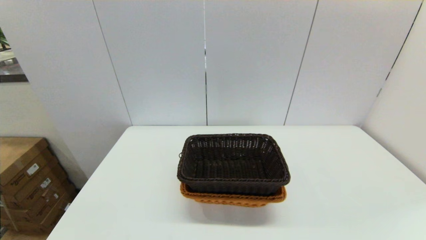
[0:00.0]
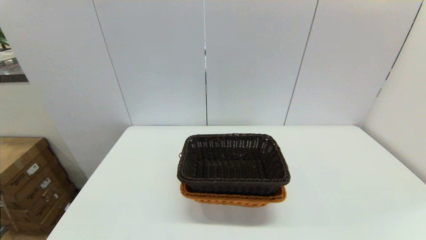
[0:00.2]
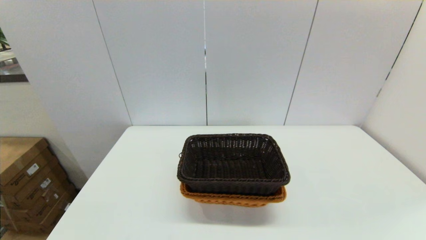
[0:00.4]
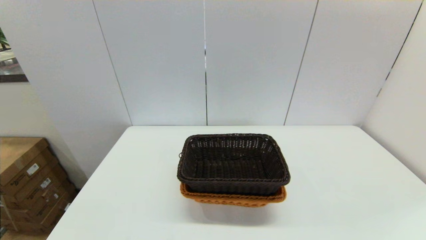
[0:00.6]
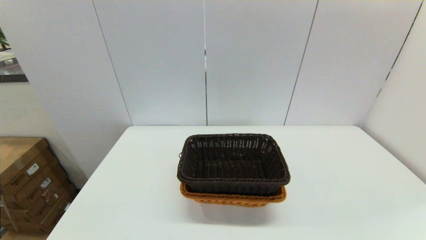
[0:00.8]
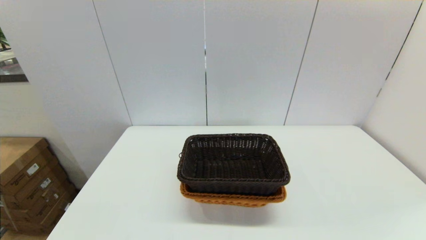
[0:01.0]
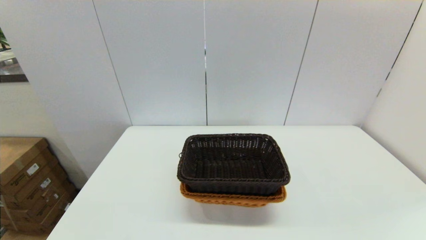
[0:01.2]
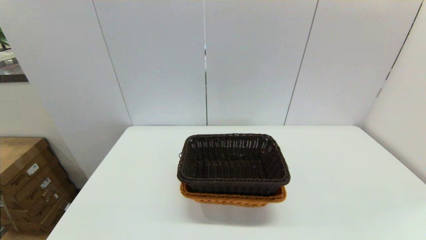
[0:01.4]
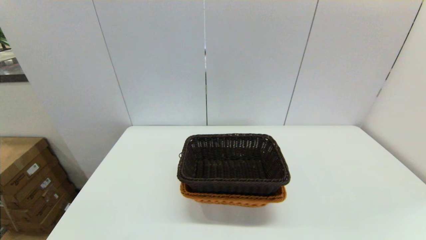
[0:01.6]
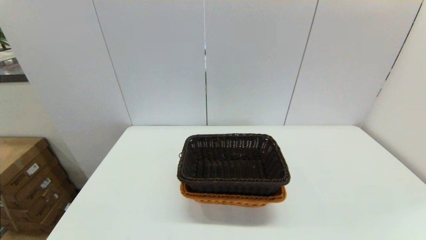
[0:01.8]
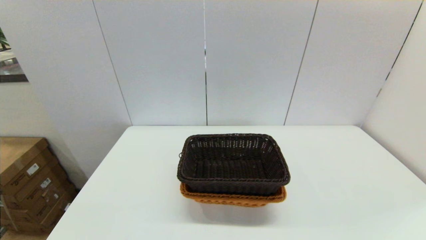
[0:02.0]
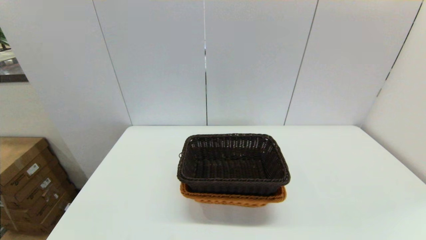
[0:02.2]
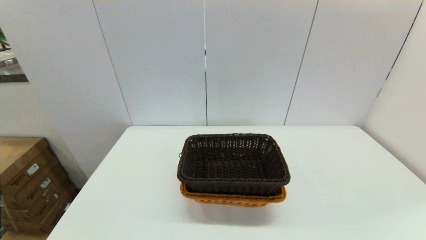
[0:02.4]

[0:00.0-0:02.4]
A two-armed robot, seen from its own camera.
Task of the whole recording: stack a basket on top of another basket.
0.0 to 1.2 s: The two grippers keep their place.
1.2 to 2.4 s: Both grippers stay put.

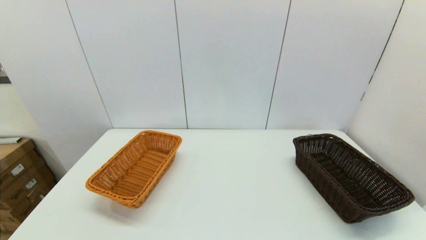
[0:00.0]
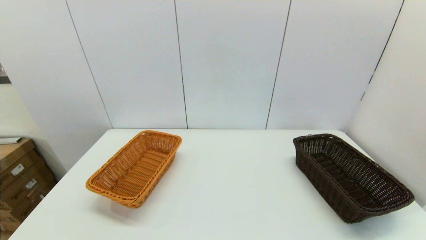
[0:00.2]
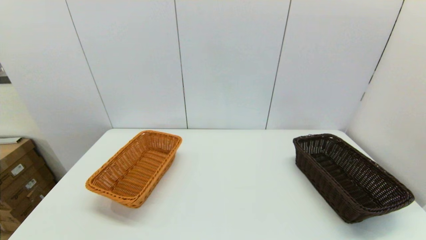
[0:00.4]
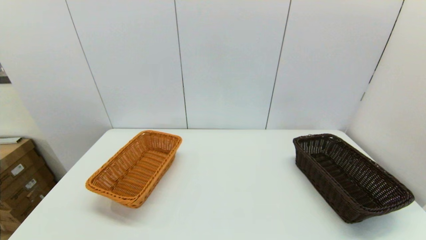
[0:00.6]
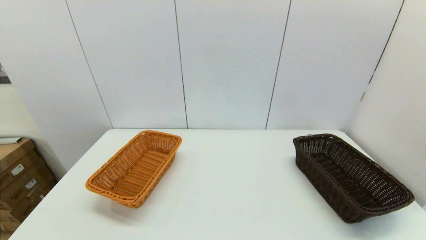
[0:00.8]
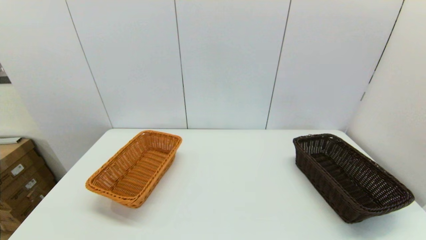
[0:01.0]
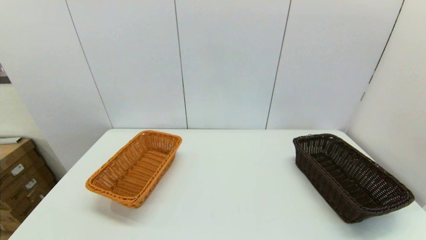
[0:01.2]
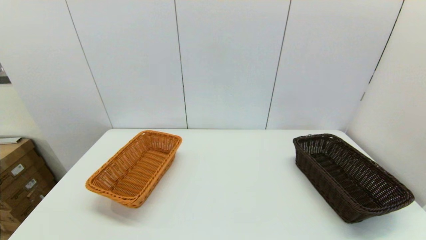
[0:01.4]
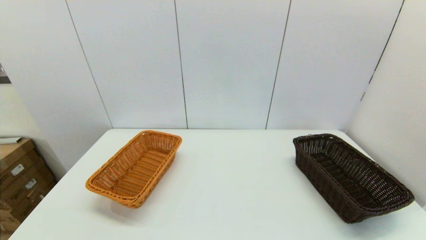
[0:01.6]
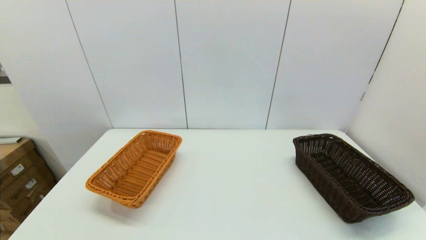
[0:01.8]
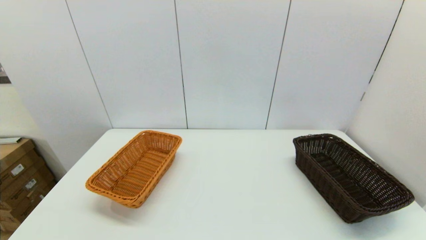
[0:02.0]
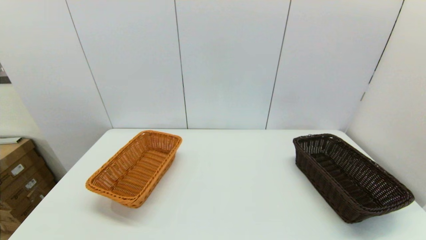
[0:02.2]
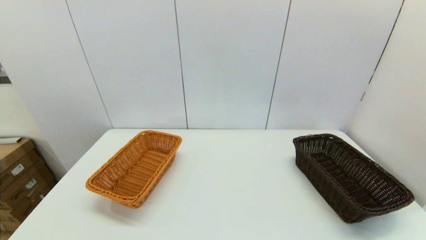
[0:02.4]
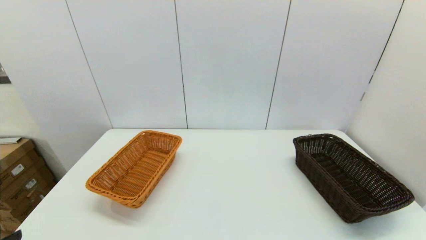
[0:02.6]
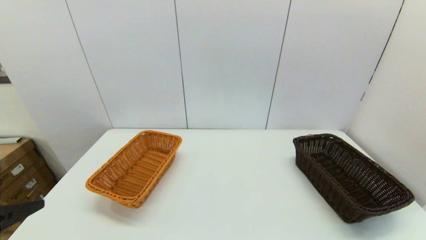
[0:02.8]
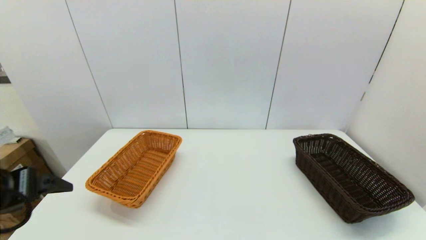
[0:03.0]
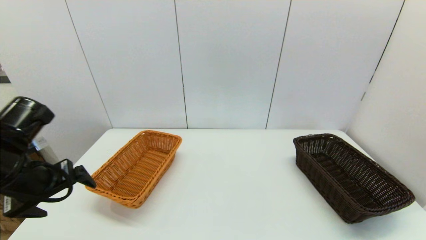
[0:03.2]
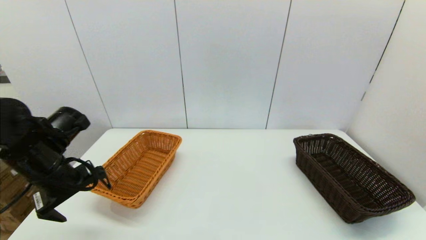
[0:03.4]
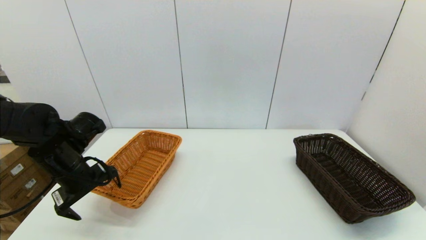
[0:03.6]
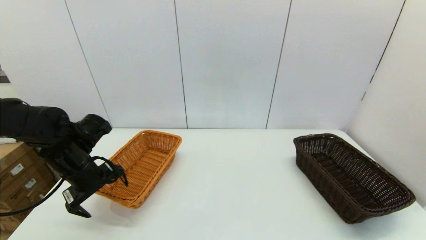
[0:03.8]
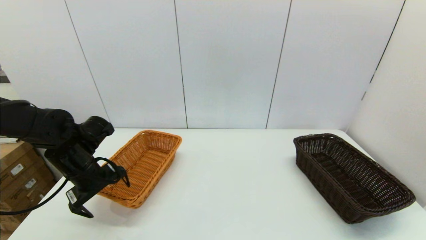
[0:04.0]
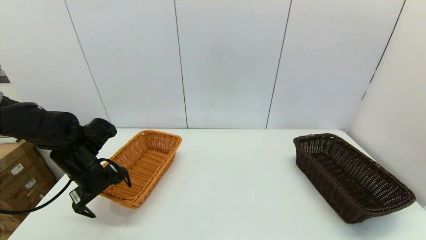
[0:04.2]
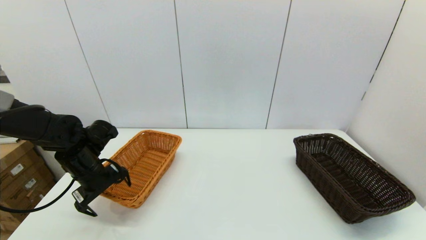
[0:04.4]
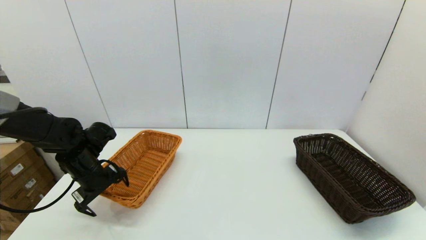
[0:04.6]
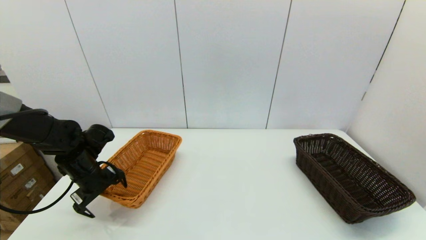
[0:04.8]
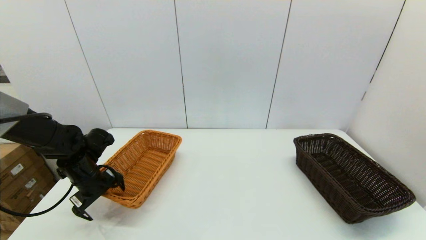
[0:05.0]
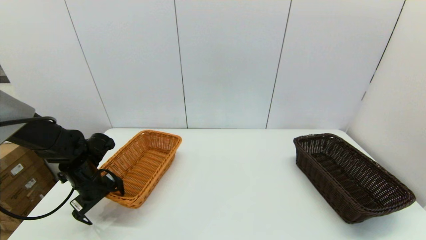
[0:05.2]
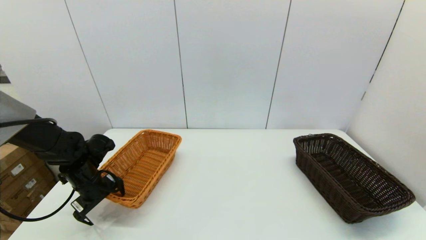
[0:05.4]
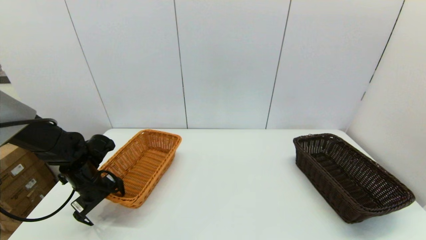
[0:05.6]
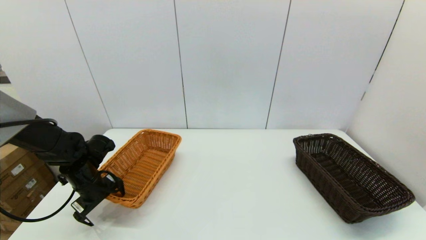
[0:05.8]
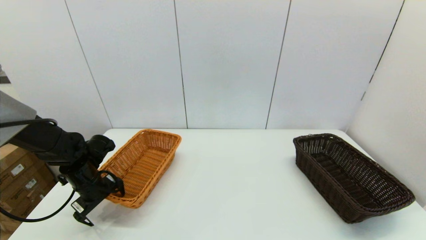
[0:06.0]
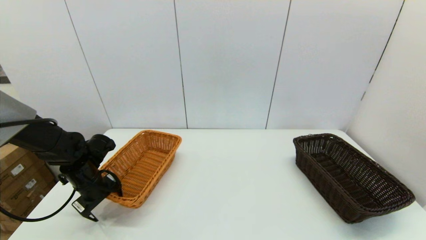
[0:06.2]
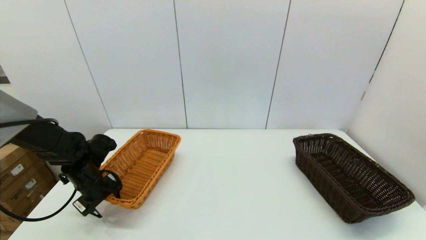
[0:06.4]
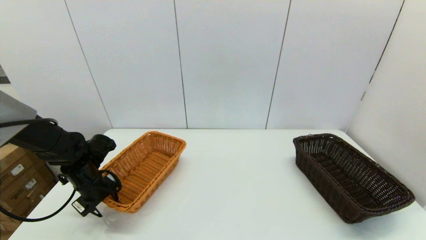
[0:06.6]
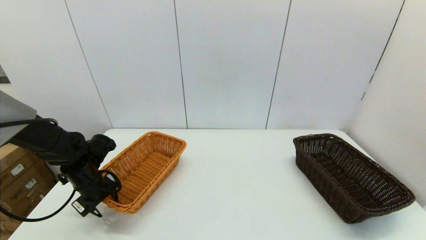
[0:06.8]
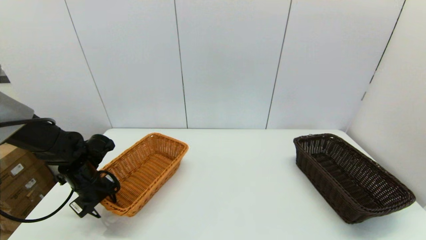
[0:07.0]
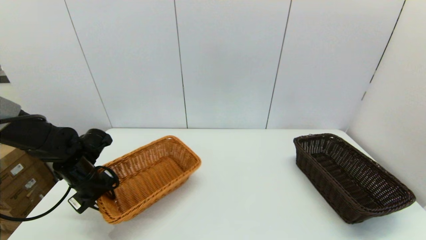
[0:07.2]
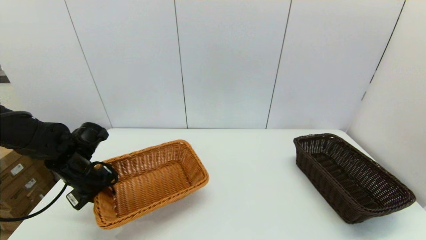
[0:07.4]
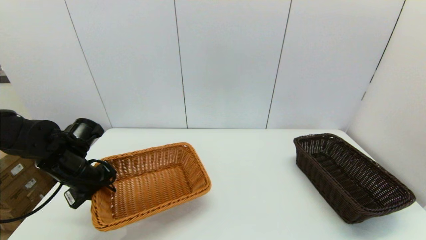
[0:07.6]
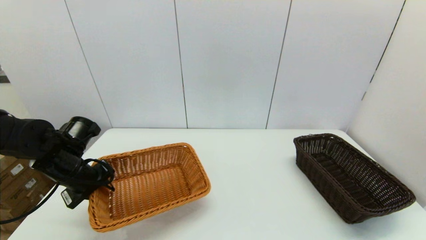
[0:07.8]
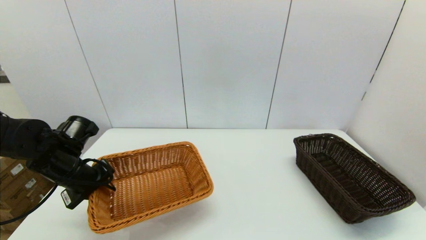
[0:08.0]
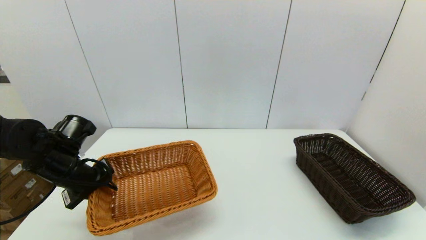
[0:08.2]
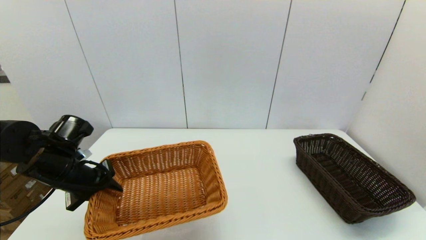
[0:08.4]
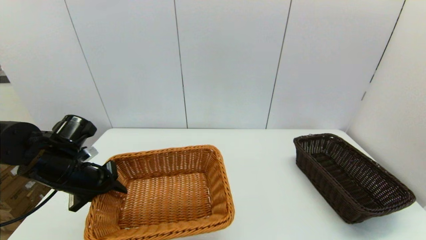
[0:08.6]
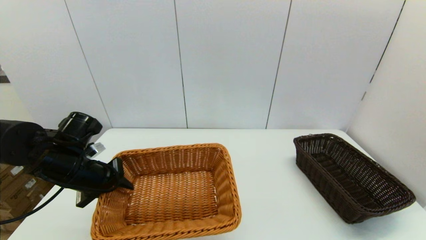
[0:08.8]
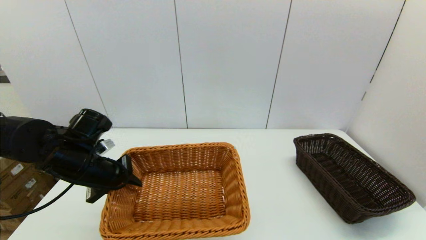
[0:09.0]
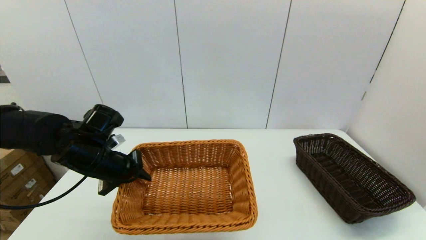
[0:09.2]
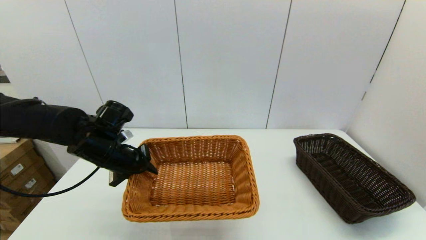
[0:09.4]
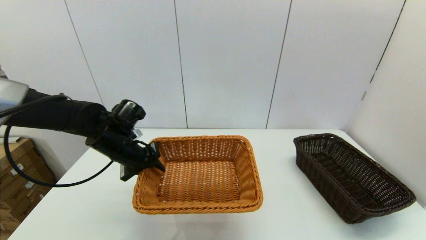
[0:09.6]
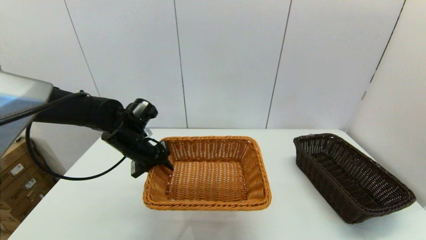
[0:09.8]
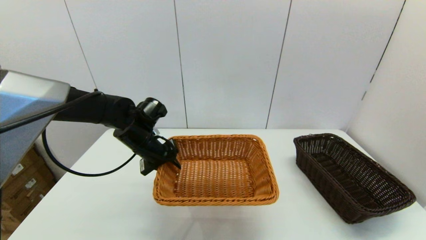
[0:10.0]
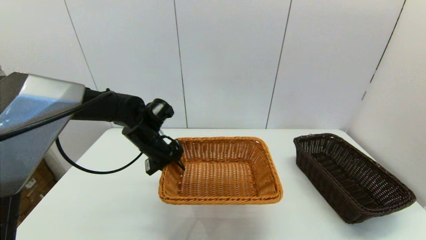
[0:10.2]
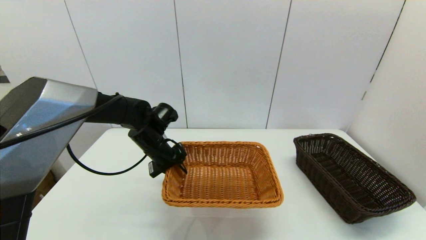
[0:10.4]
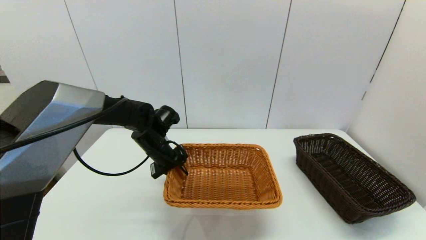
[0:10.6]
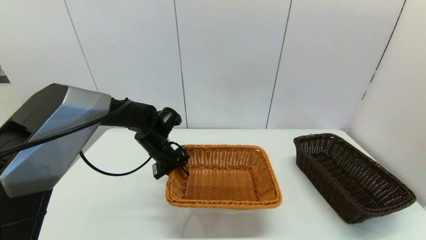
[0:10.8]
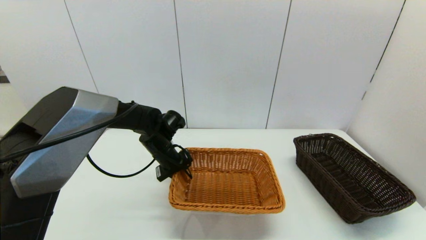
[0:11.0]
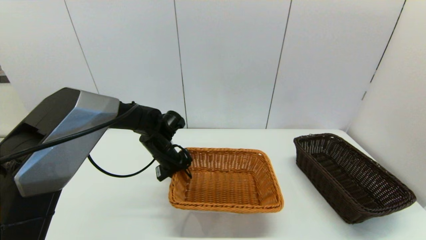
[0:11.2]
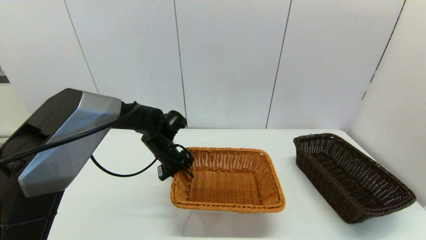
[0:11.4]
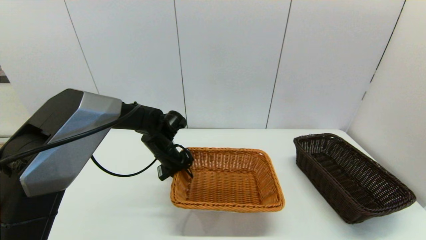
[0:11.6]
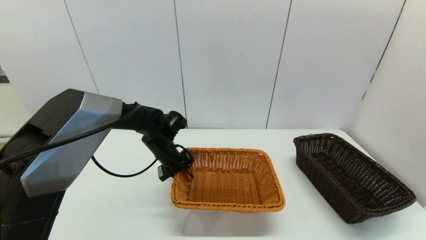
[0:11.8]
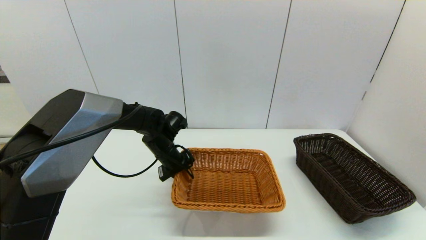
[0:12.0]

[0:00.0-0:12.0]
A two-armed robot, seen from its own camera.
Task of the whole recording: stack a basket on top of another basket.
Step, 2.6 to 7.0 s: Grasp the light basket with the left gripper.
0.0 to 1.6 s: Neither gripper changes place.
1.6 to 3.0 s: The left gripper travels forward and upward by approximately 20 cm.
3.0 to 4.4 s: The left gripper shifts some 20 cm forward and downward.
4.4 to 6.0 s: The left gripper shifts some 5 cm downward.
6.0 to 7.6 s: The left gripper shifts roughly 5 cm upward, and closes.
7.6 to 9.0 s: The left gripper moves some 5 cm.
9.0 to 10.4 s: The left gripper shifts roughly 15 cm forward and to the right.
10.4 to 12.0 s: The grippers stay close to where they were, moving slightly.

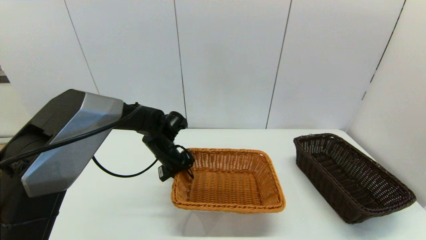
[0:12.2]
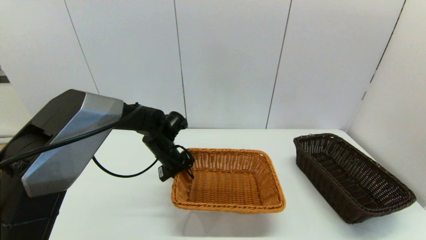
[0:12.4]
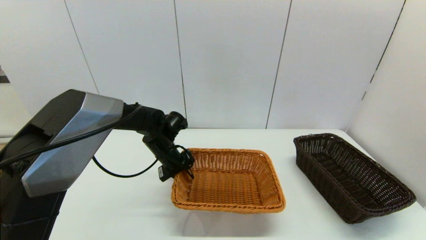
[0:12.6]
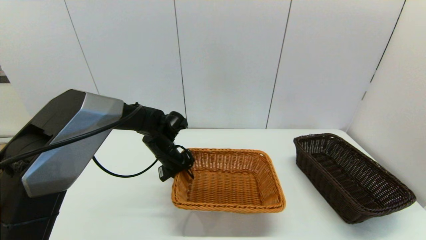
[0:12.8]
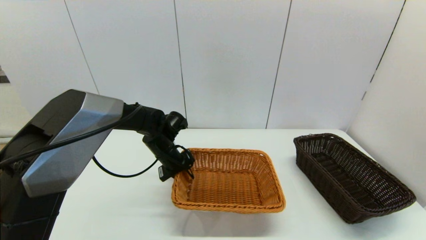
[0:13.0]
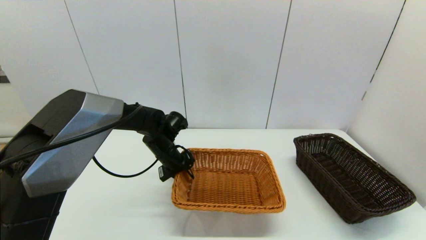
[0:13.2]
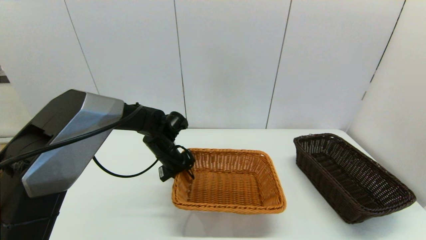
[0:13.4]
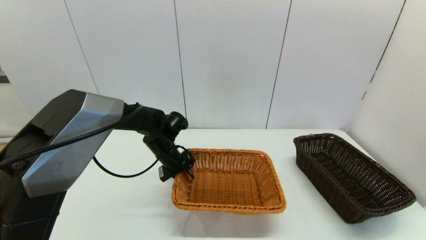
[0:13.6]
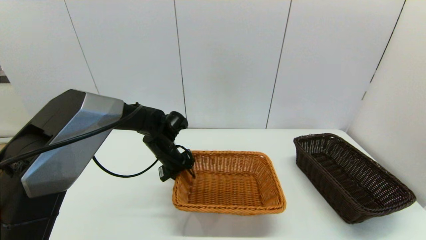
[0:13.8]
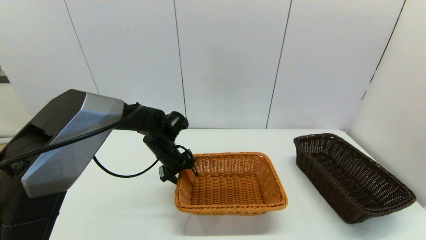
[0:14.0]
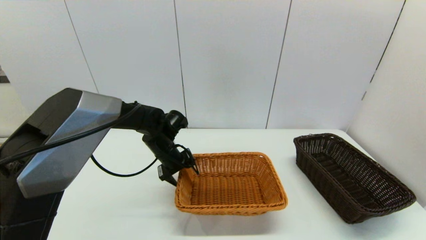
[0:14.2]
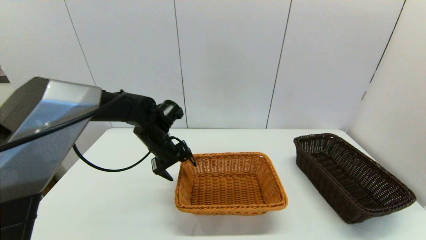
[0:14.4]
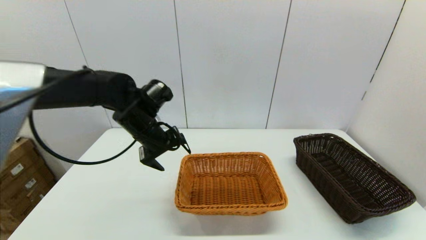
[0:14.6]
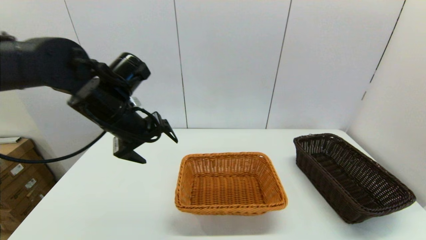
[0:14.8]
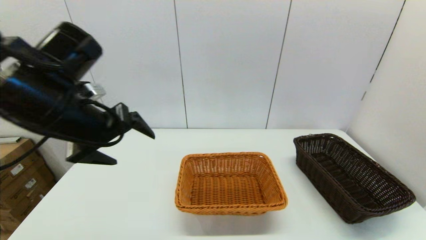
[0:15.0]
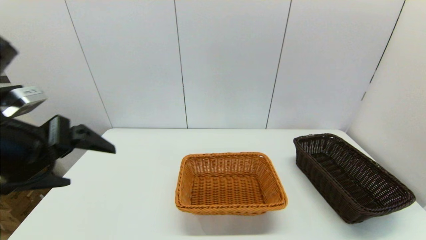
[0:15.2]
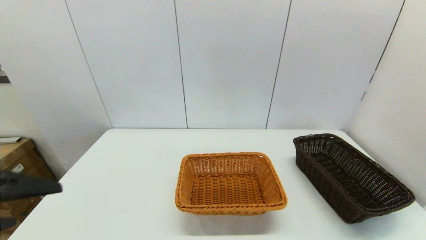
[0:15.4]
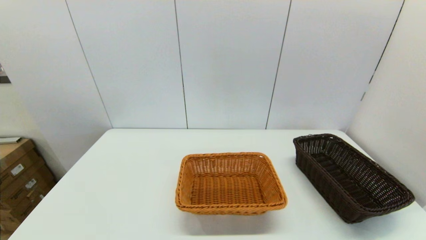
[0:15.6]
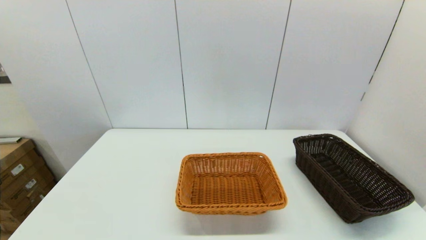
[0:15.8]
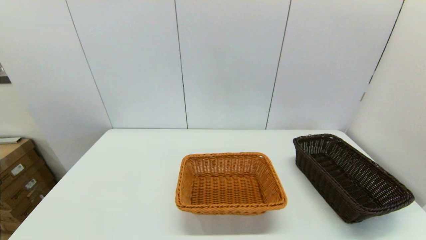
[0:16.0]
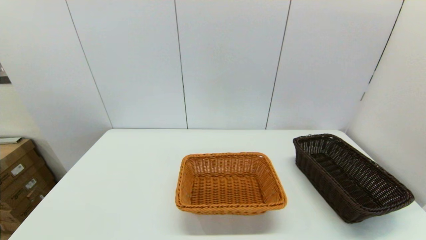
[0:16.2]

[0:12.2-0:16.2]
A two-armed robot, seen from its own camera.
Task of the whole recording: stack a basket on top of another basket.
Step, 12.2 to 14.6 s: Place the light basket on the middle of the table with the left gripper.
12.2 to 13.6 s: Both grippers stay put.
13.6 to 14.8 s: The left gripper heads upward and backward, covering about 20 cm, and opens its fingers.
14.8 to 16.2 s: The left gripper moves backward and to the left, some 40 cm.
